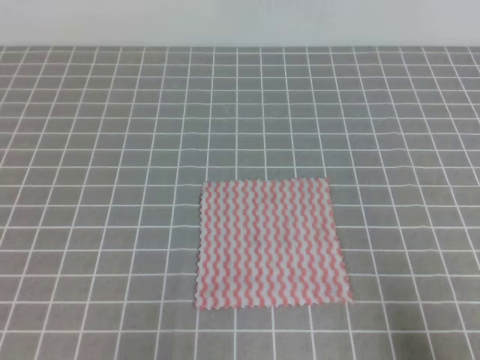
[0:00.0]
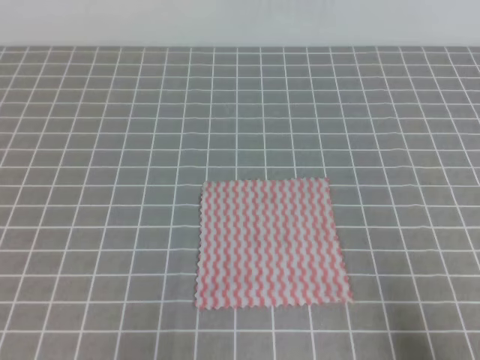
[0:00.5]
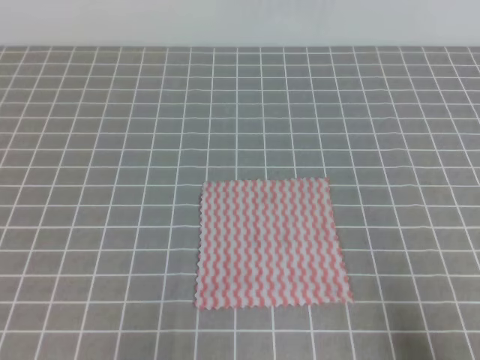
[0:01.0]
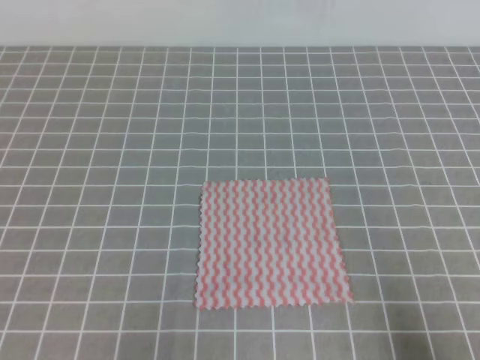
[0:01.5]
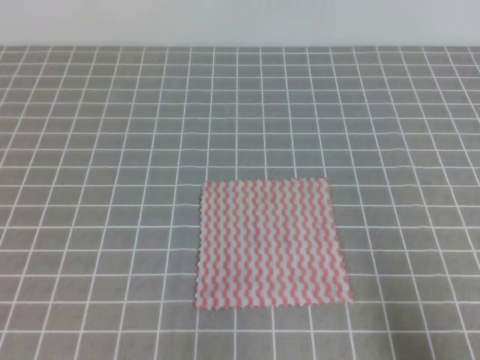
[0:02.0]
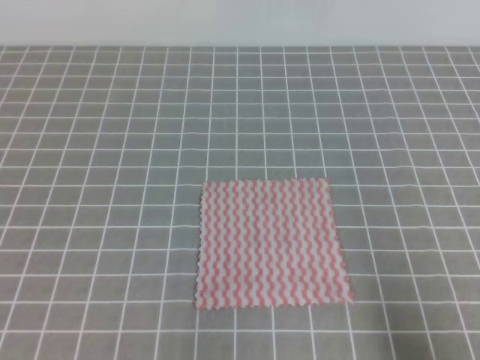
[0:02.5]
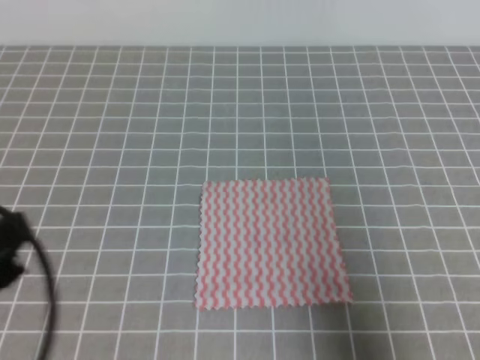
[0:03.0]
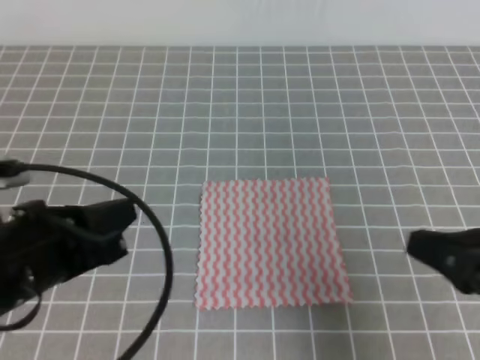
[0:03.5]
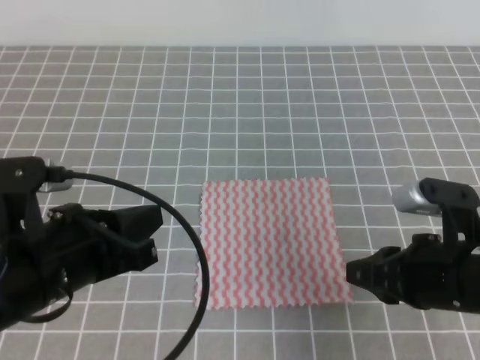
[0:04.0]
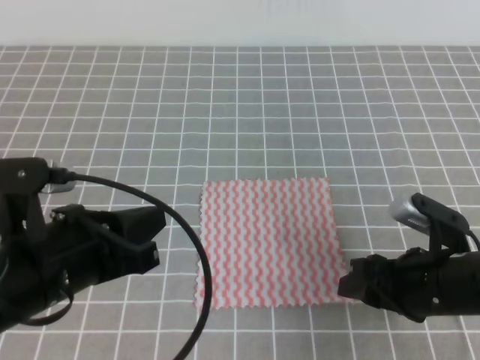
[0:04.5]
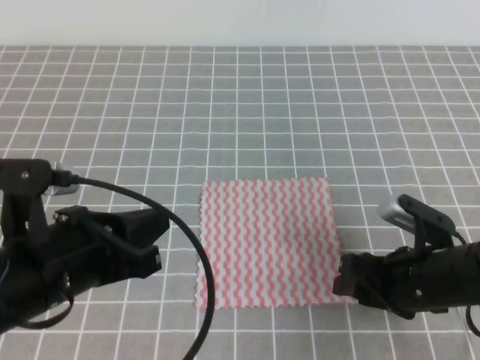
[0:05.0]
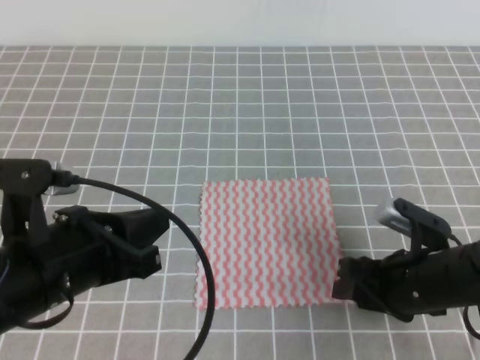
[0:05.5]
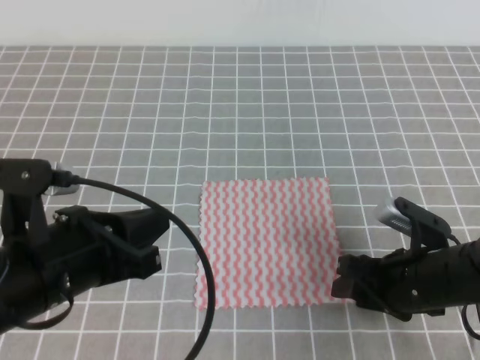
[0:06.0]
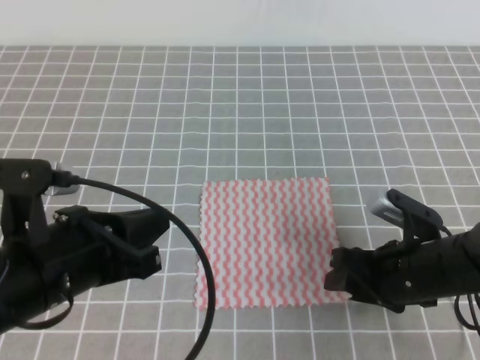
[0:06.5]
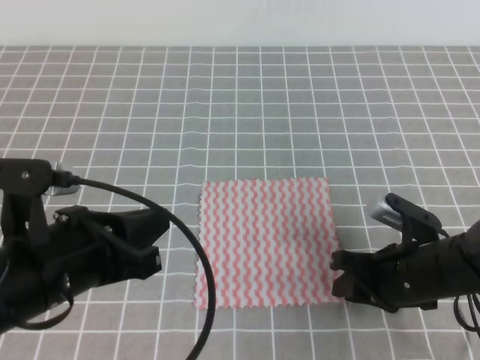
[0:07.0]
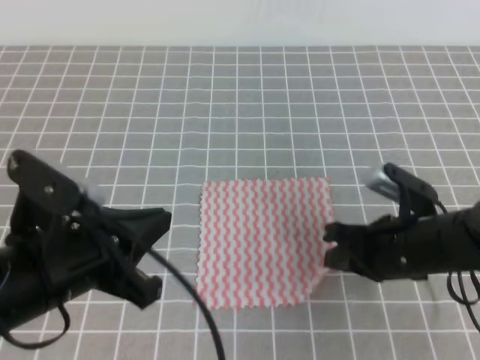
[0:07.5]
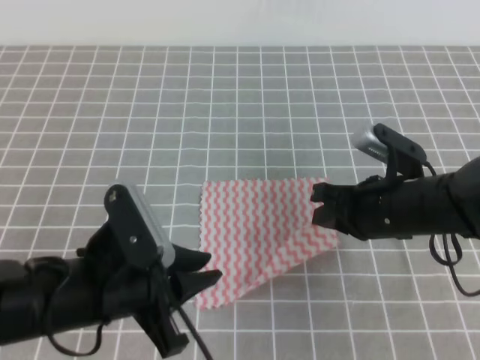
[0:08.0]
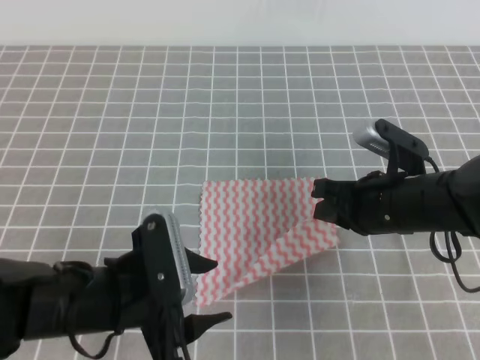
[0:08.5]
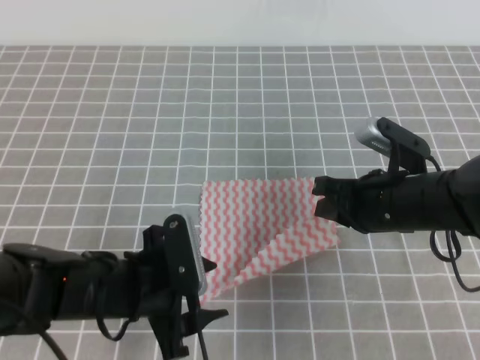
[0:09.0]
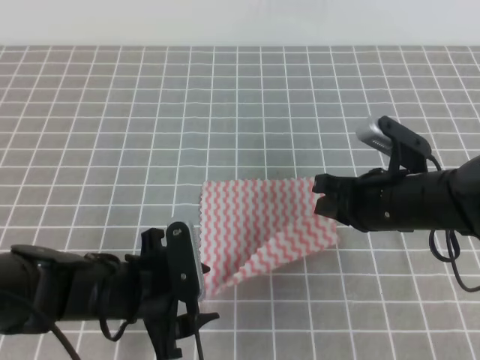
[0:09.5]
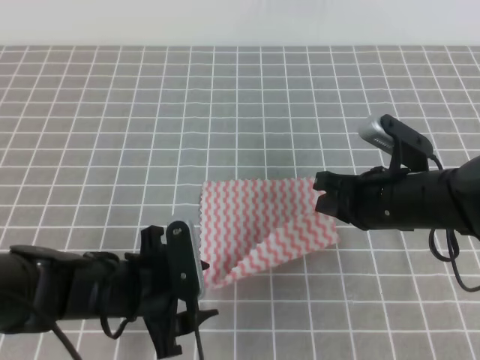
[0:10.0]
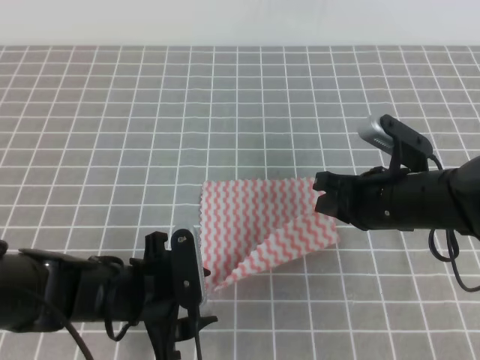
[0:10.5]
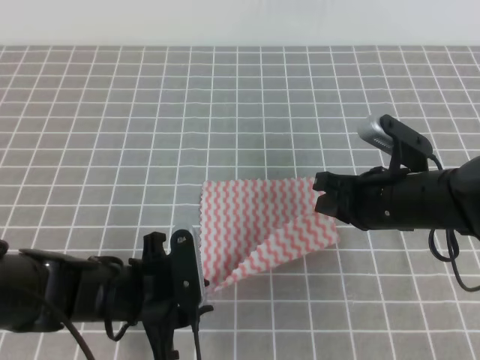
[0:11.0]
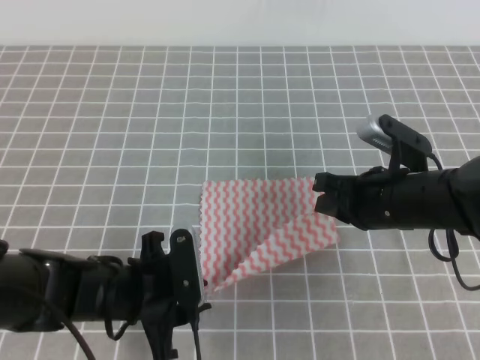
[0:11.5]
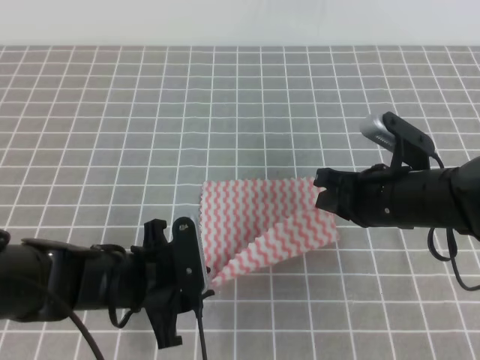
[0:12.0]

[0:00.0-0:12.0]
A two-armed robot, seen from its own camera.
0:02.0 to 0:04.0: The left gripper travels forward, to the right and upward by some 15 cm. Meanwhile the right gripper heads forward and to the left, covering about 20 cm, and opens its fingers.
0:04.0 to 0:06.0: The right gripper heads downward, covering about 5 cm, and opens its fingers.
0:06.0 to 0:08.0: The left gripper opens its fingers, while the right gripper heads upward and forward, covering roughly 10 cm, and closes up.
0:08.0 to 0:10.0: The left gripper is displaced downward by about 10 cm, and opens up.
0:10.0 to 0:12.0: The left gripper closes up.

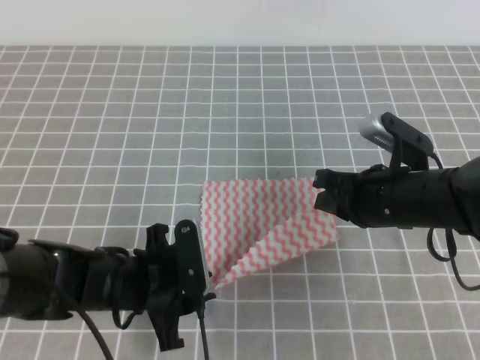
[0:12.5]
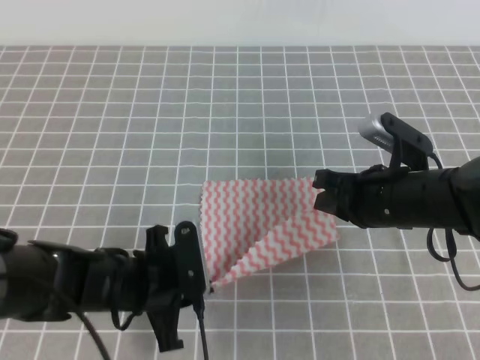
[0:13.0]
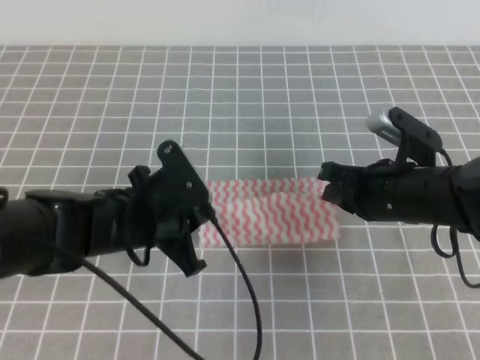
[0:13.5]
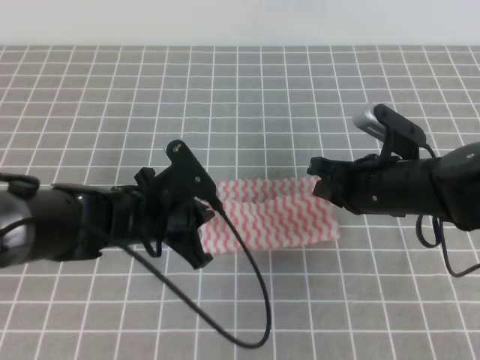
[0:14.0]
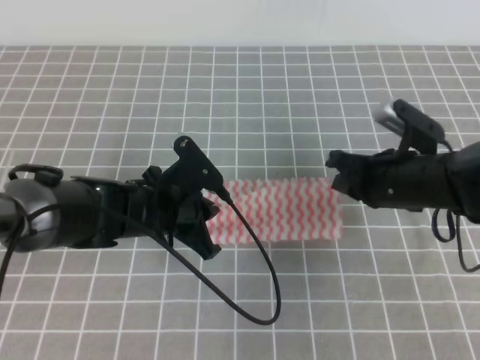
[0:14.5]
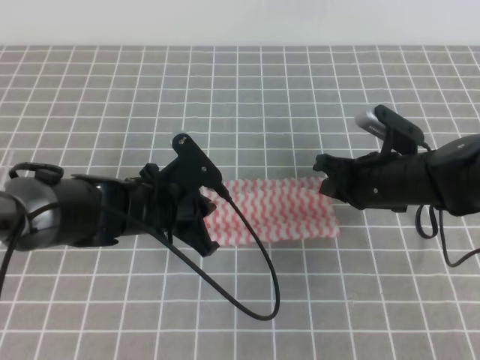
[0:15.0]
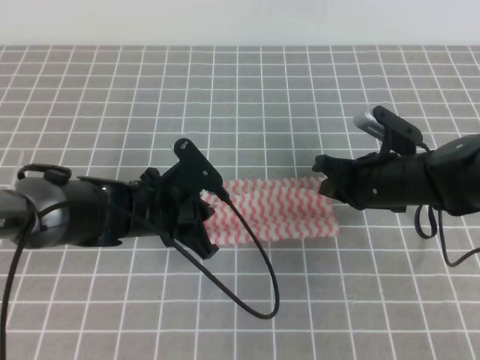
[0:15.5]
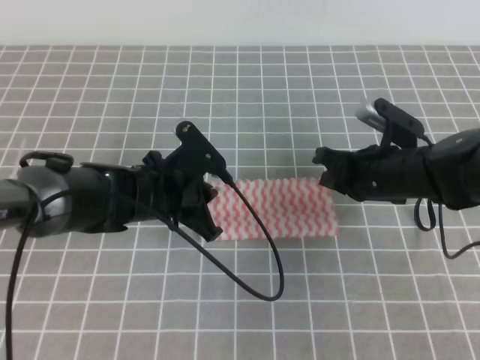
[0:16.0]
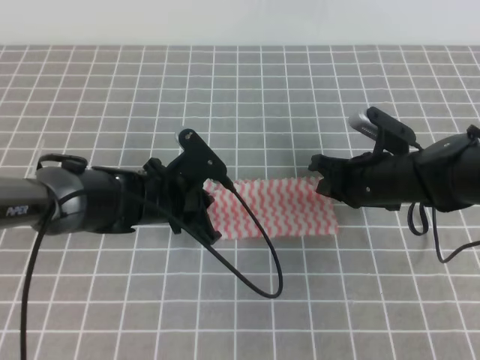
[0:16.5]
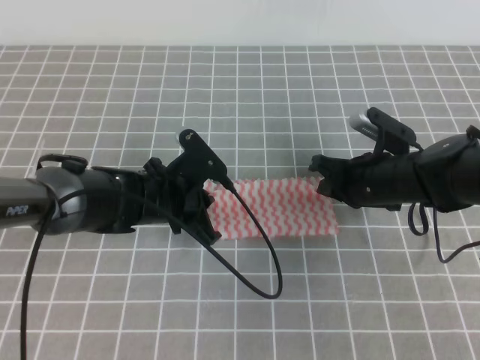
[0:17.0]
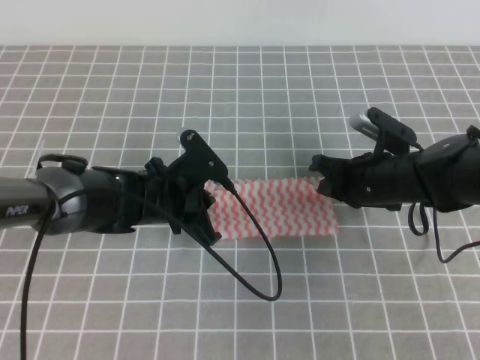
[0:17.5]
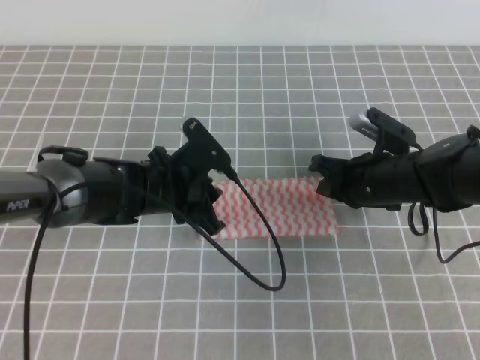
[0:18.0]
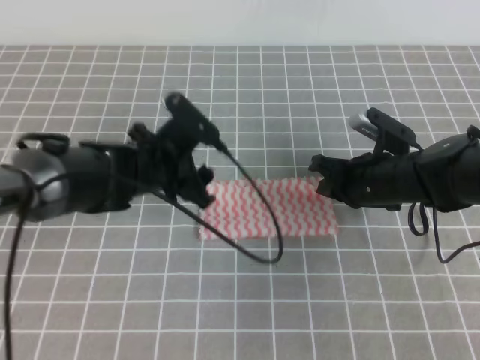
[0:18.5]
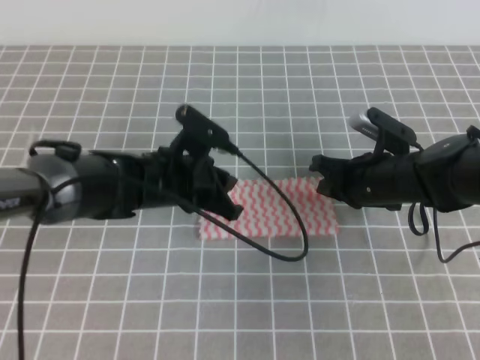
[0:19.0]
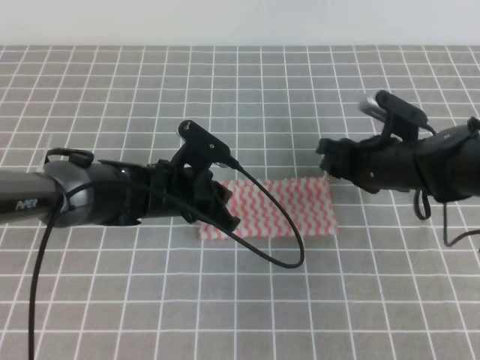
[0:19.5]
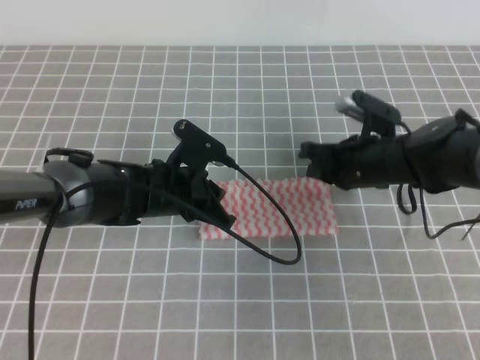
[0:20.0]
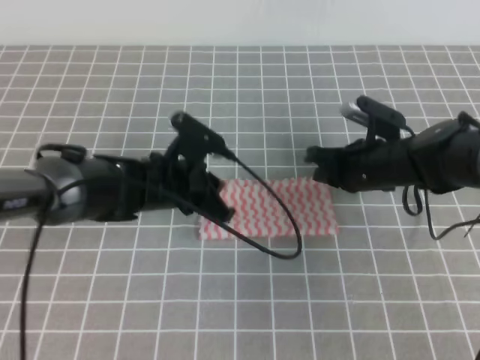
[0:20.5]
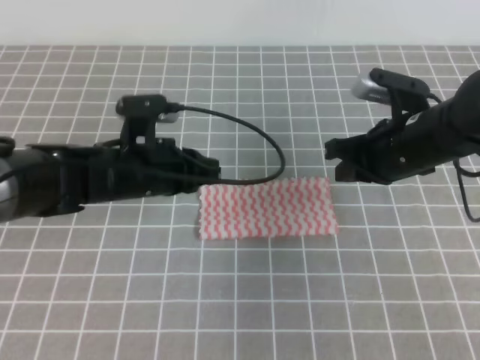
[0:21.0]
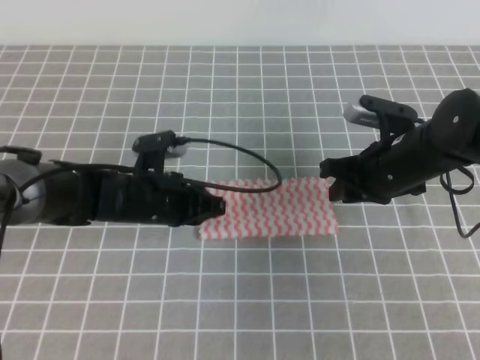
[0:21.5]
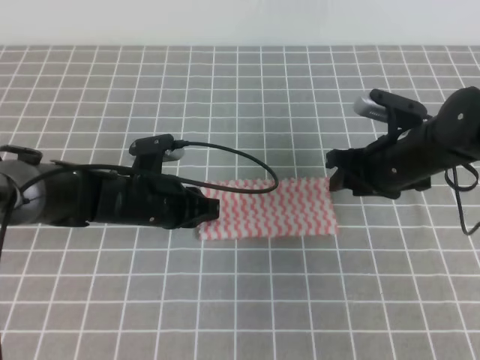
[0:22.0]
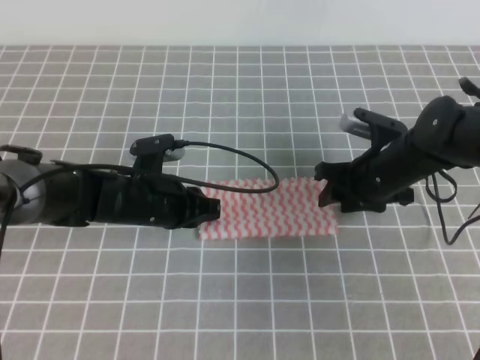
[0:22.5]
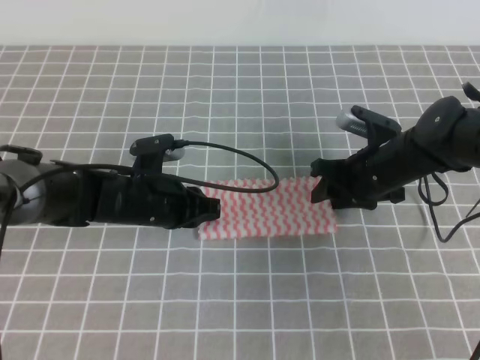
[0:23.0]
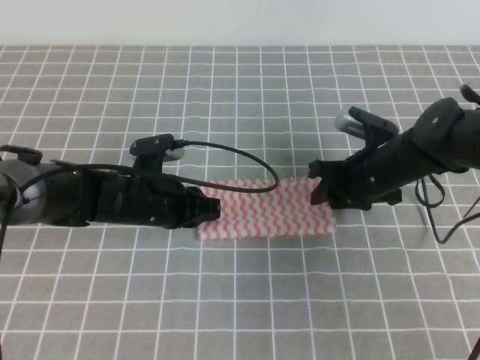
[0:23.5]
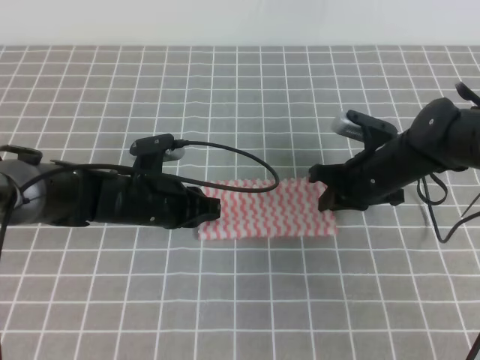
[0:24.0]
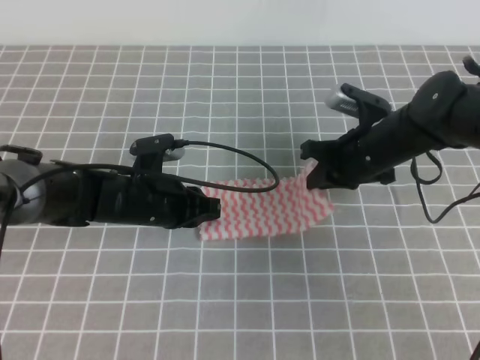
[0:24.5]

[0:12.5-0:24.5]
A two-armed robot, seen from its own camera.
0:12.5 to 0:14.5: The left gripper travels forward by roughly 10 cm, and closes up.
0:14.5 to 0:16.5: The grippers stay close to where they were, moving slightly.
0:16.5 to 0:18.5: The left gripper opens.
0:18.5 to 0:20.5: The left gripper closes its fingers. The right gripper opens and closes again.
0:20.5 to 0:22.5: The right gripper opens.
0:22.5 to 0:24.5: The right gripper closes up.

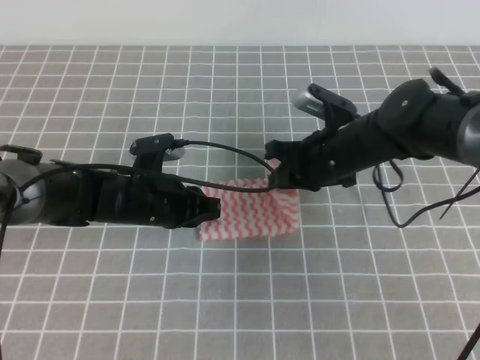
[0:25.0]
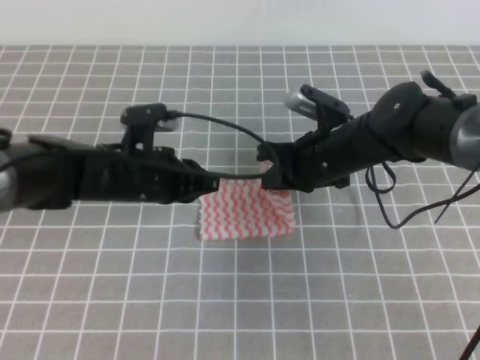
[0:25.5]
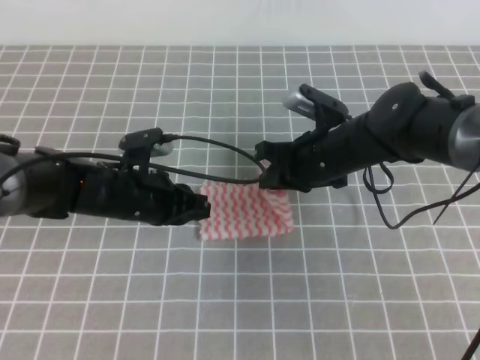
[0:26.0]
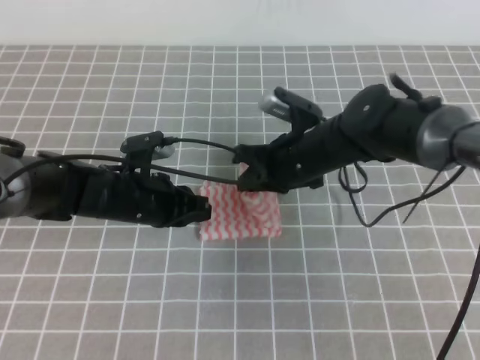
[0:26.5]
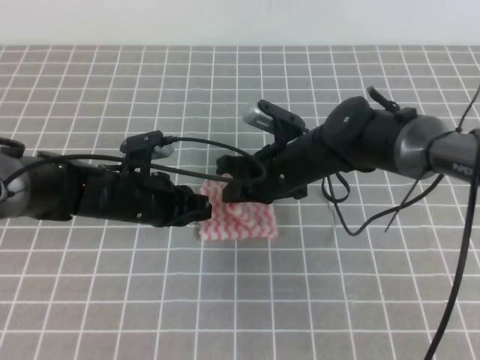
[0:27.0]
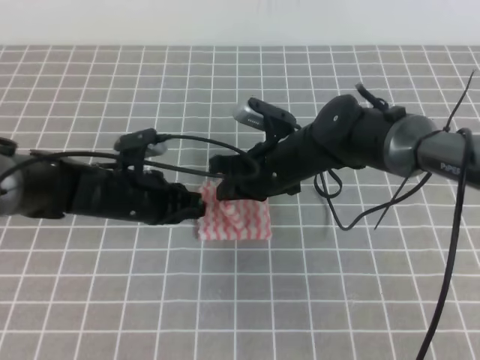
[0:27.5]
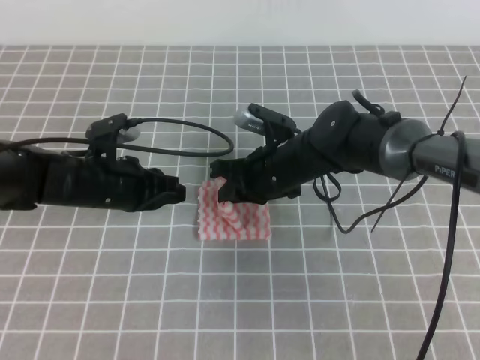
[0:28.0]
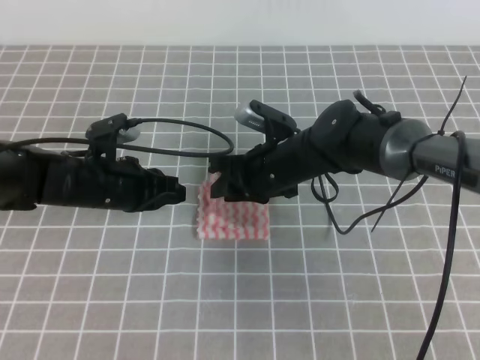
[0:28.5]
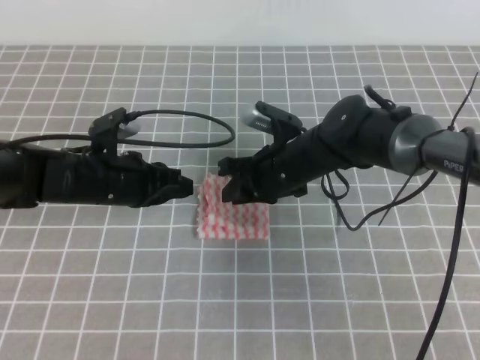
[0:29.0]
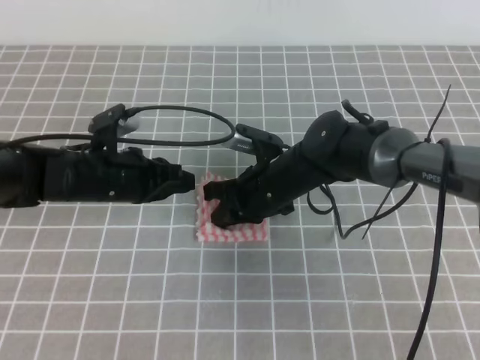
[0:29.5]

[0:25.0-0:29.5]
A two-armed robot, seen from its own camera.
0:25.0 to 0:27.0: The right gripper goes approximately 5 cm to the left.
0:27.0 to 0:29.5: The right gripper opens and closes again.
